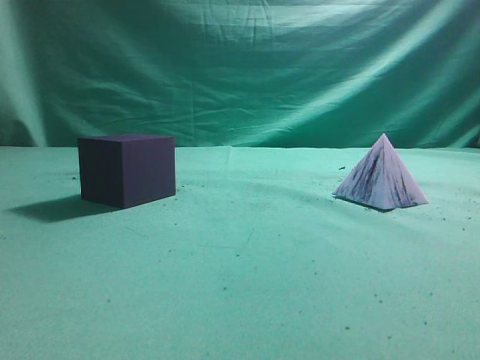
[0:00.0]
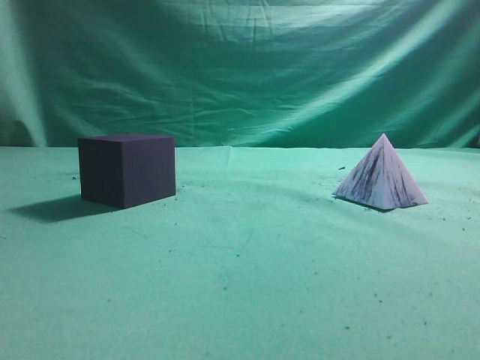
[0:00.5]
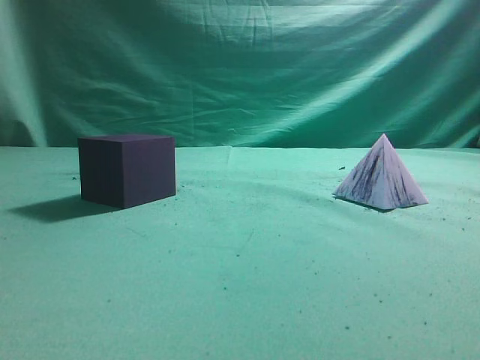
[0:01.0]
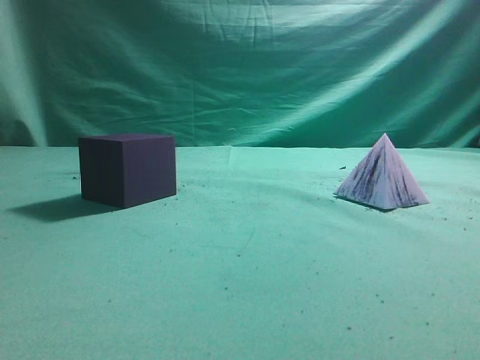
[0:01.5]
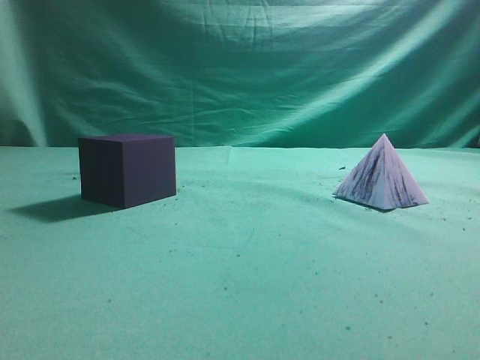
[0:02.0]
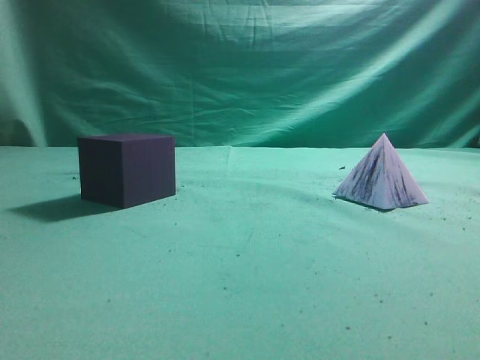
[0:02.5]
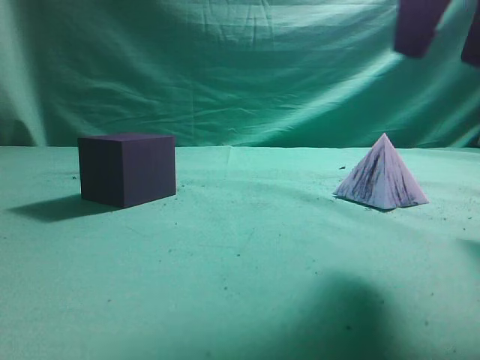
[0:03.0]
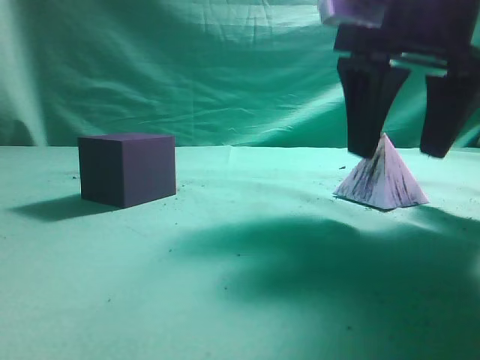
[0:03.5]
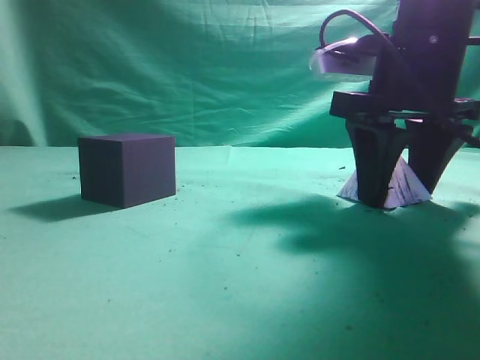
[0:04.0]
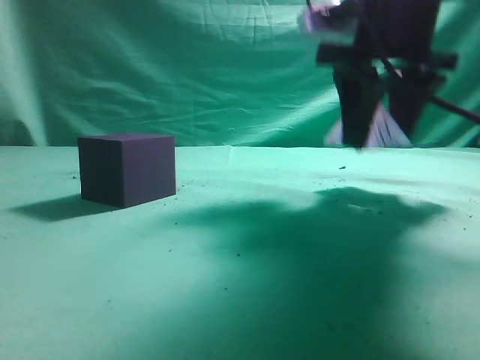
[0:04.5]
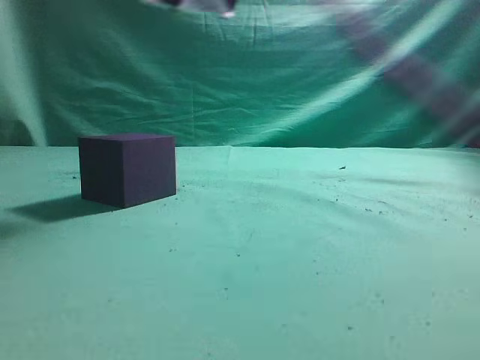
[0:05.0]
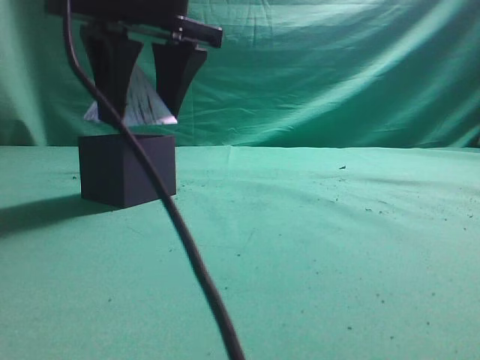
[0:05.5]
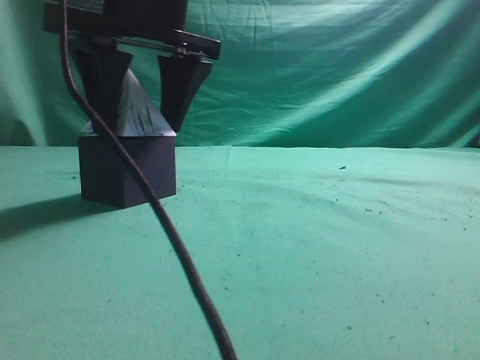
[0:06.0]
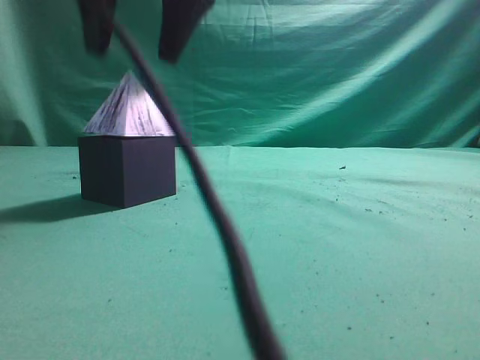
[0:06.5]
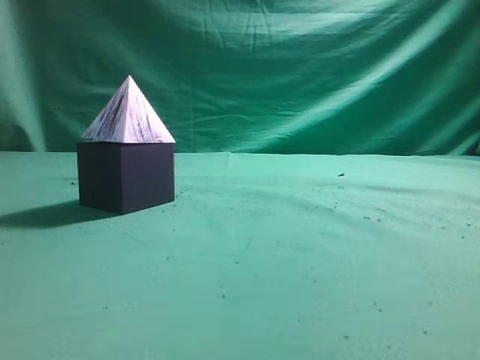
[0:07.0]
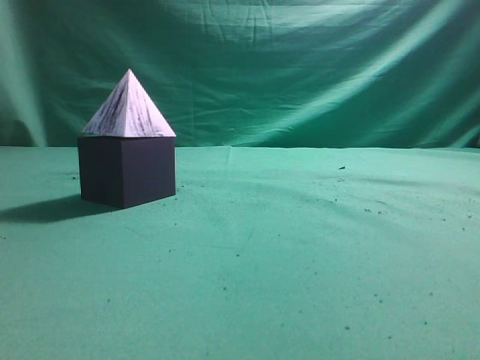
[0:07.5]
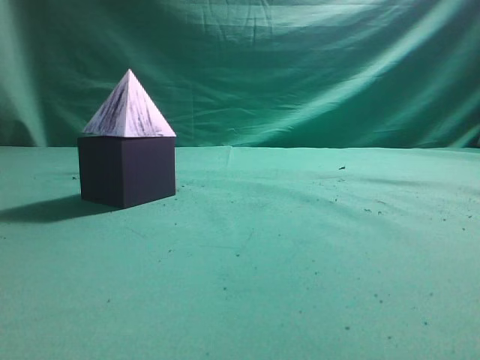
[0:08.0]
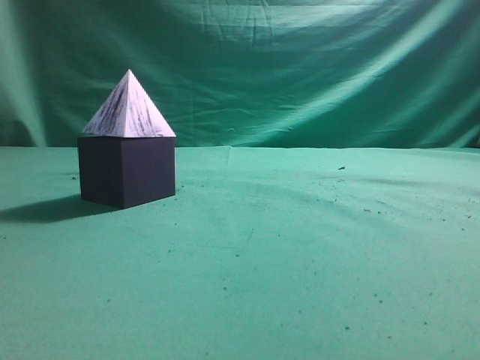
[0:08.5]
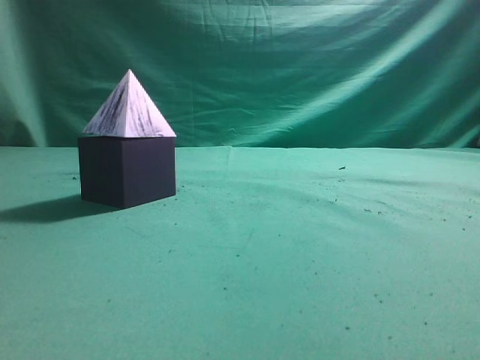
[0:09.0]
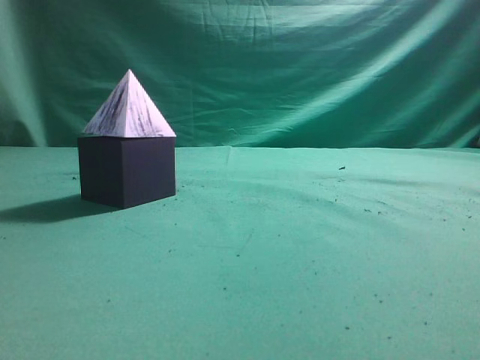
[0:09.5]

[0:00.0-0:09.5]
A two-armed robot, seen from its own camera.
Task of the whole recording: pick up the square pyramid from the table and place it on the cube block.
Step, 0:00.0 to 0:04.5: Grasp the triangular block.
Step, 0:05.0 to 0:06.0: Place the block onto the cube-shaped block.
0:02.0 to 0:04.0: The right gripper travels forward, to the left and downward by roughly 30 cm, and opens up.
0:04.0 to 0:05.5: The right gripper shifts some 20 cm to the left.
0:05.5 to 0:07.5: The right gripper goes approximately 35 cm to the right, upward and backward, and closes its fingers.

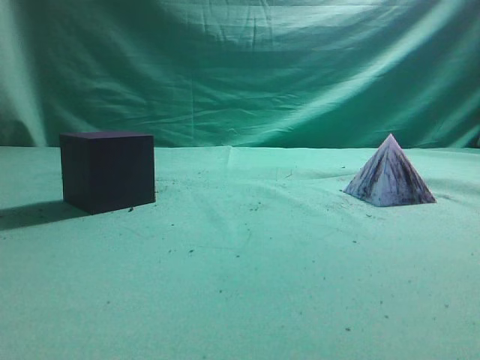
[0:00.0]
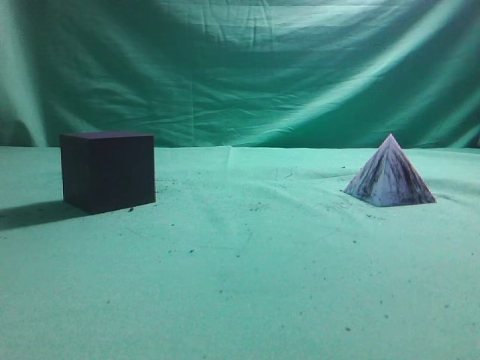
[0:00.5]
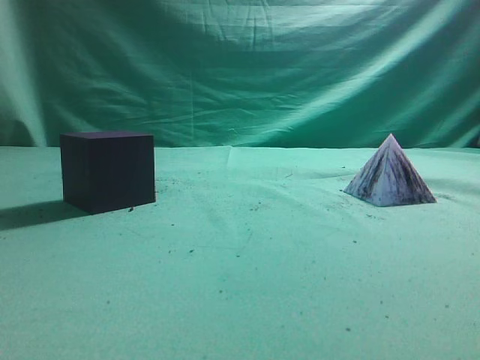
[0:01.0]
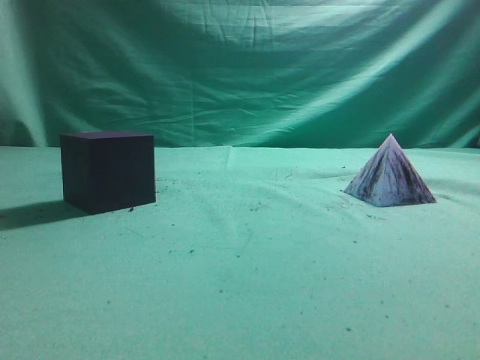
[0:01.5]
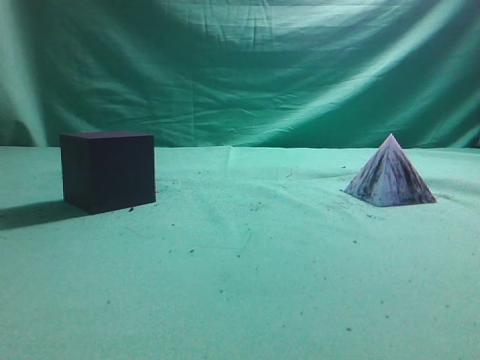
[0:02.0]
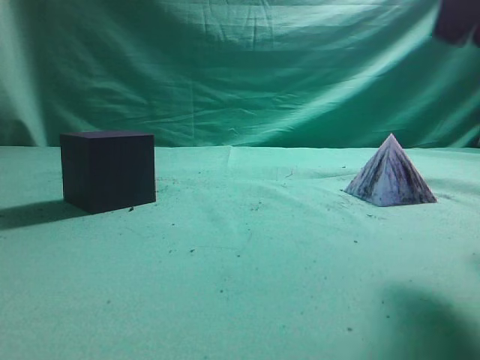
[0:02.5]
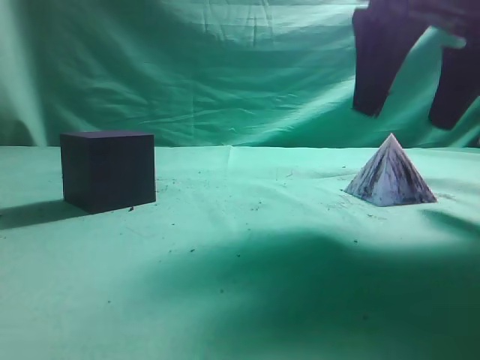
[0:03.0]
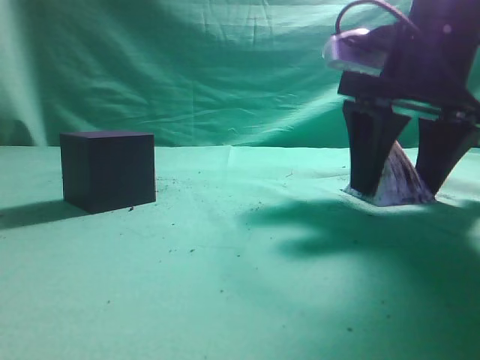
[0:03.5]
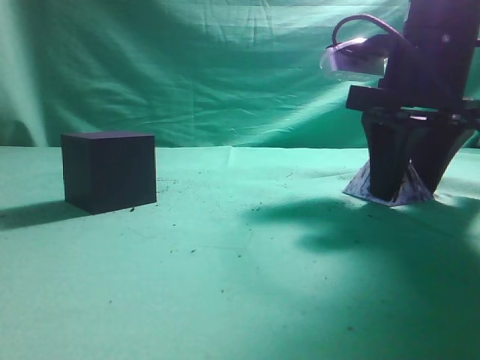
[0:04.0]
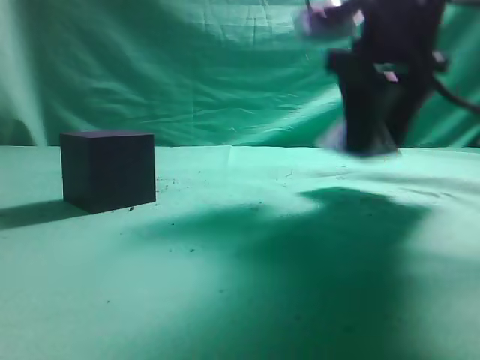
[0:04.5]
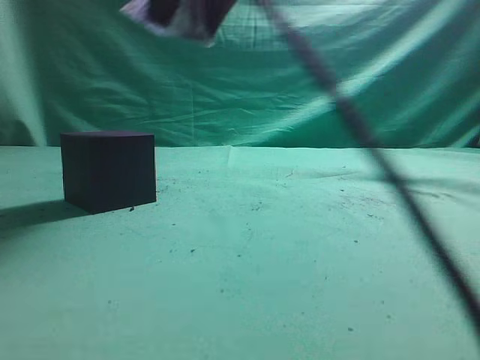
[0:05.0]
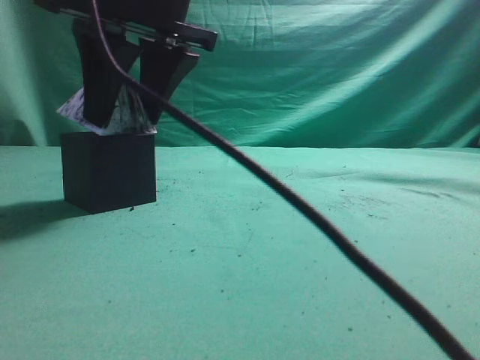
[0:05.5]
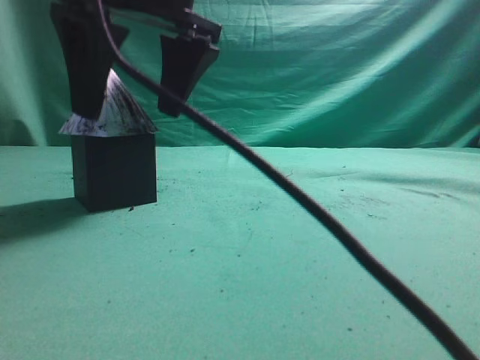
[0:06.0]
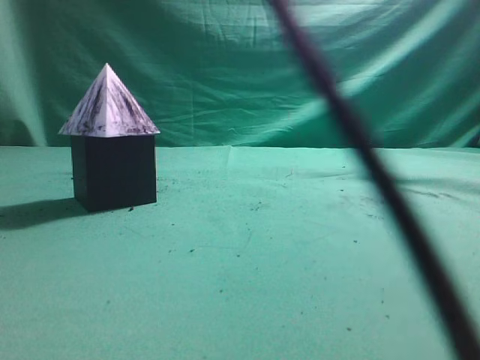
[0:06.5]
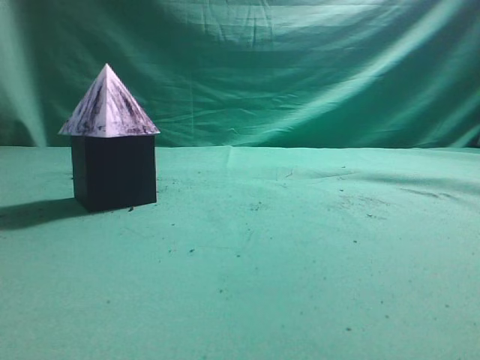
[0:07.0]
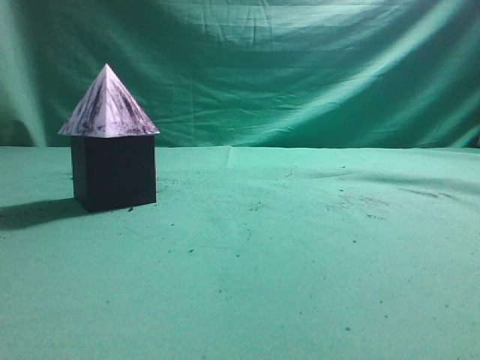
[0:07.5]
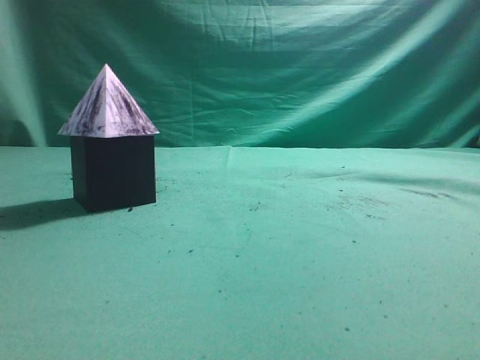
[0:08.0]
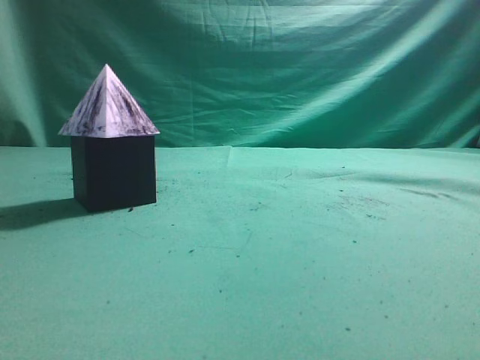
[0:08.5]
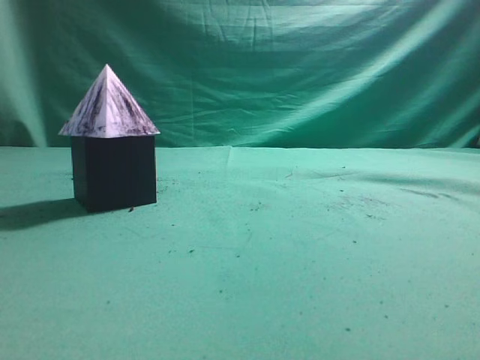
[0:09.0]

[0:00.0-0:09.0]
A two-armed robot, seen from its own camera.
Task of the whole recording: pick up the square pyramid from the table and place it on the cube block.
Step, 0:00.0 to 0:04.5: Grasp the triangular block.
Step, 0:05.0 to 0:06.0: Place the block onto the cube-shaped block.
0:02.0 to 0:04.5: The right gripper moves forward, to the left and downward, roughly 25 cm, and opens.
0:04.5 to 0:07.0: The right gripper moves up and down over approximately 30 cm, changing direction 2 times, and closes.
